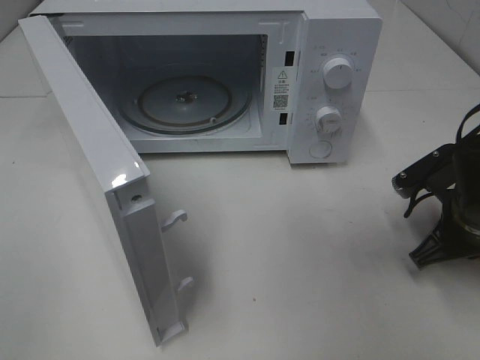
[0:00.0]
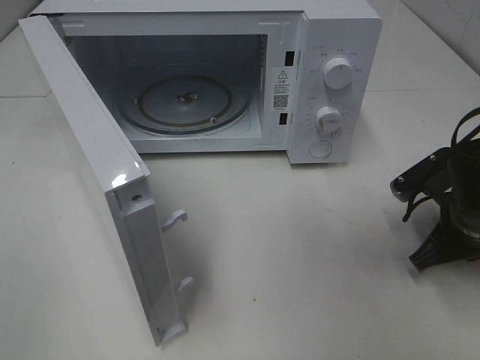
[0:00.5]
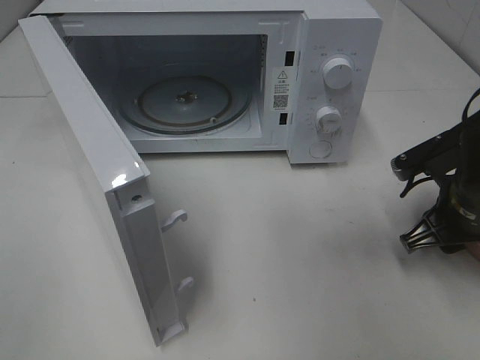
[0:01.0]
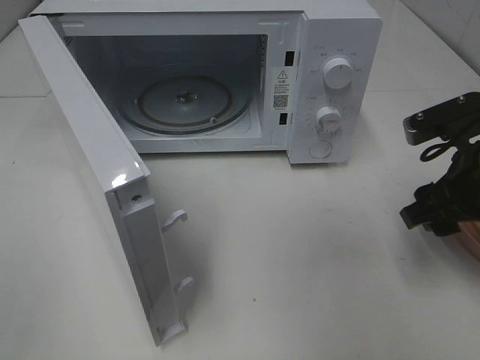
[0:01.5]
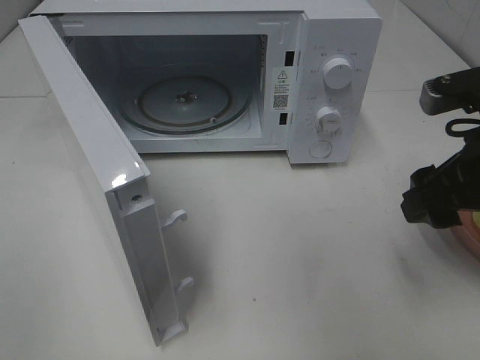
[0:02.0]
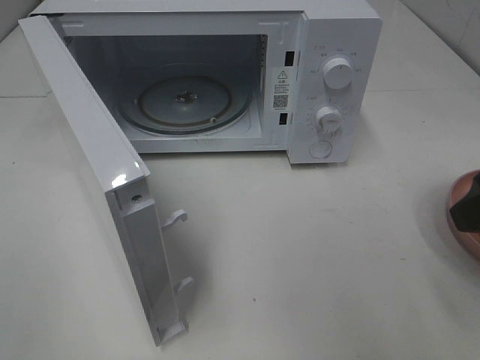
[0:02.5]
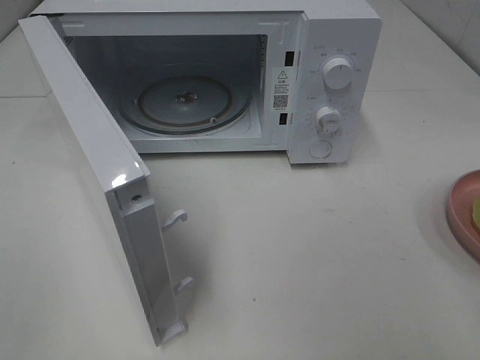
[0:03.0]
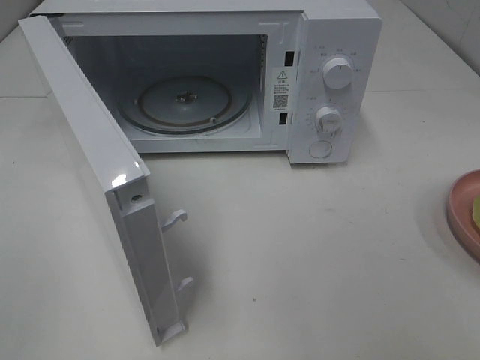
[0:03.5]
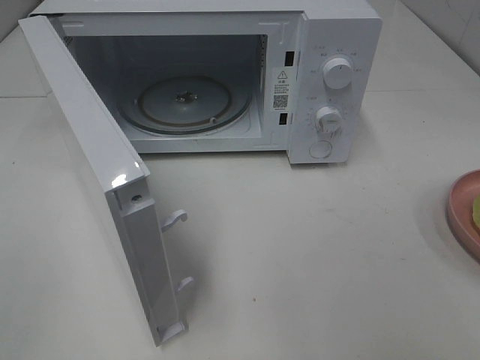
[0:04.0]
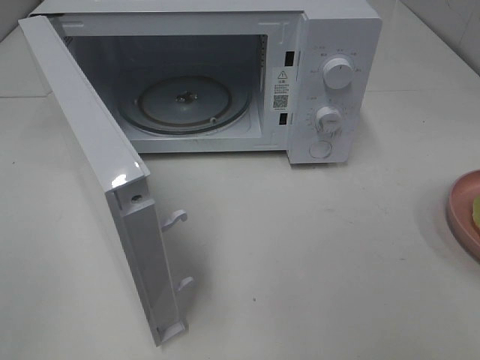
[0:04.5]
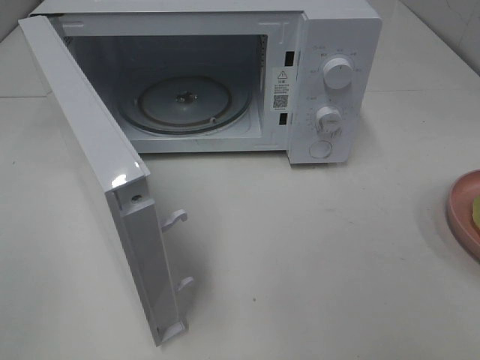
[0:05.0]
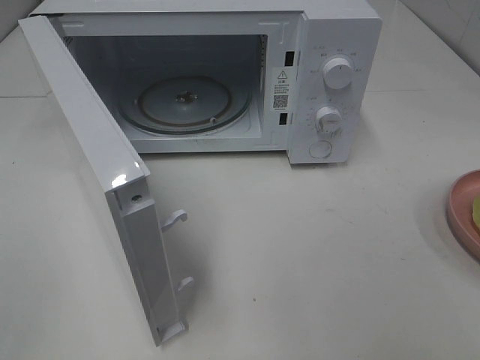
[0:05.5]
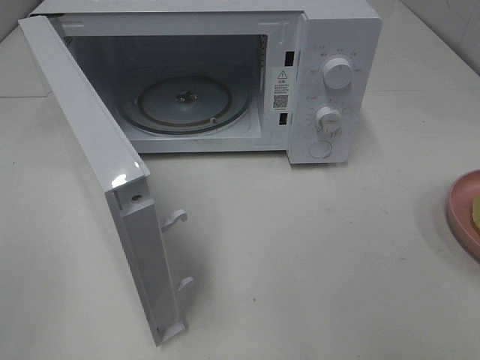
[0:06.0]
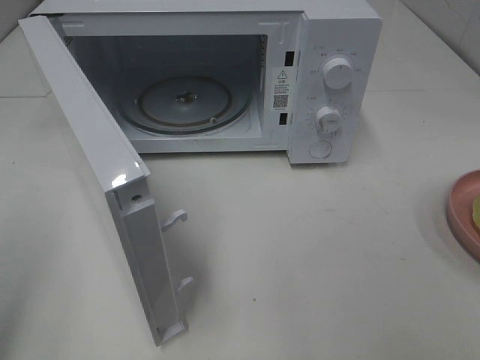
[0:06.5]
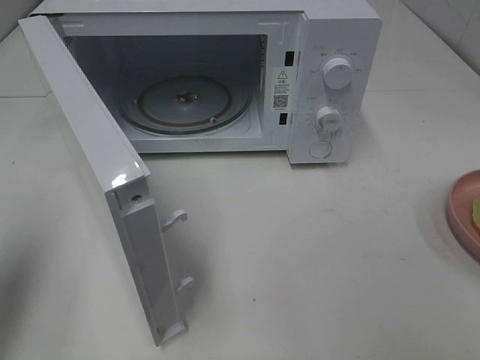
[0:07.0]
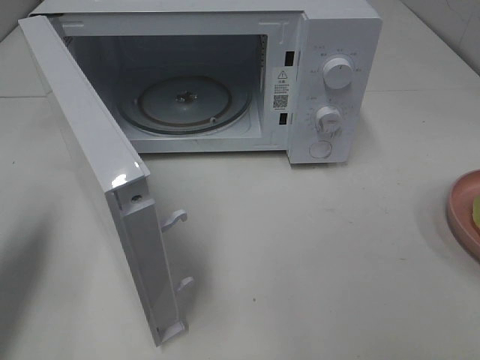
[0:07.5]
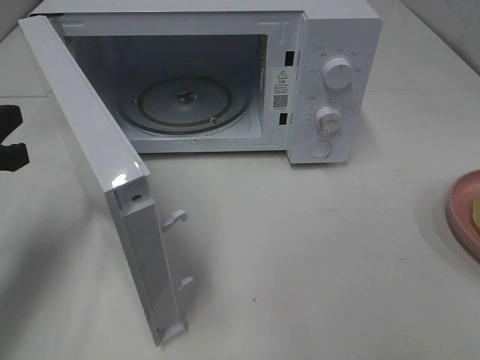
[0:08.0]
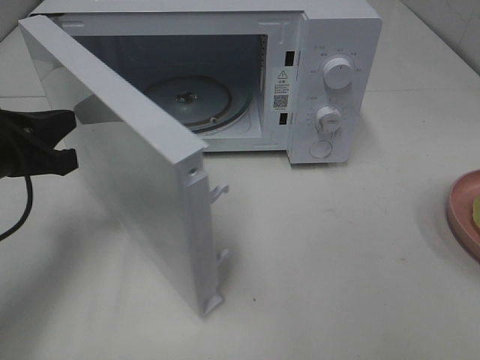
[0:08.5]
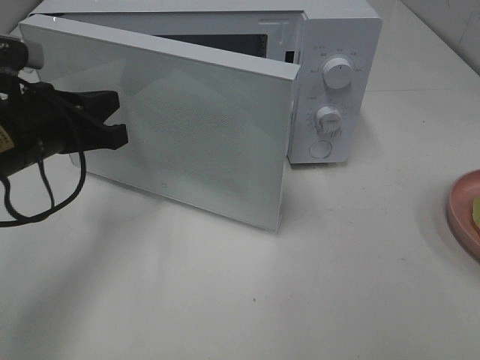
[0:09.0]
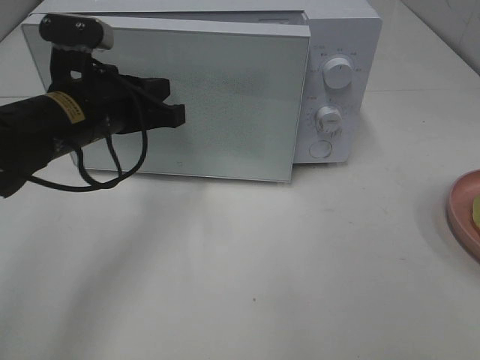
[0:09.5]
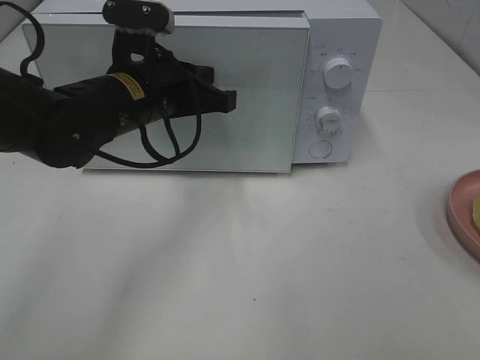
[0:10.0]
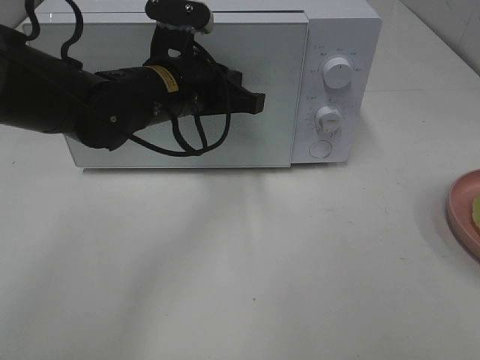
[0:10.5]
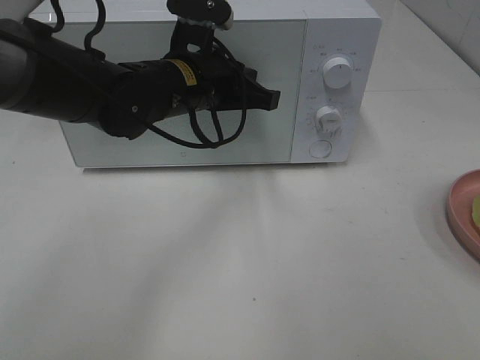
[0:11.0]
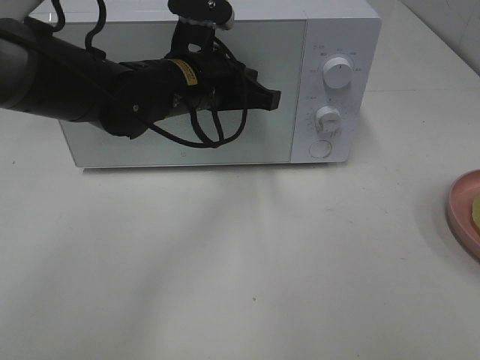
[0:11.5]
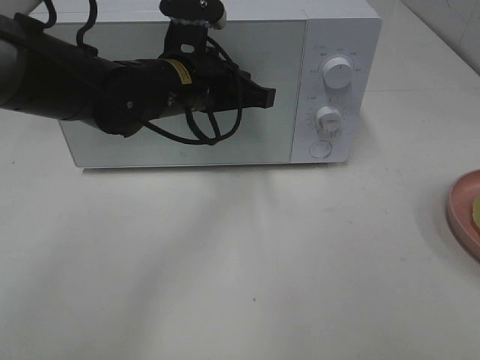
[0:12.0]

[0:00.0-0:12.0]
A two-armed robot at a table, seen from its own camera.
Task of the whole recording: Heat Sandwich.
0:00.0 to 0:02.0: The right gripper moves upward, about 15 cm, and opens up.
0:02.0 to 0:04.0: The right gripper is displaced backward by roughly 20 cm.
0:06.0 to 0:08.0: The left gripper moves forward and downward, approximately 25 cm, and closes its fingers.
0:08.0 to 0:10.0: The left gripper is displaced to the right and forward by roughly 20 cm.
0:10.0 to 0:12.0: The grippers stay close to where they were, moving slightly.

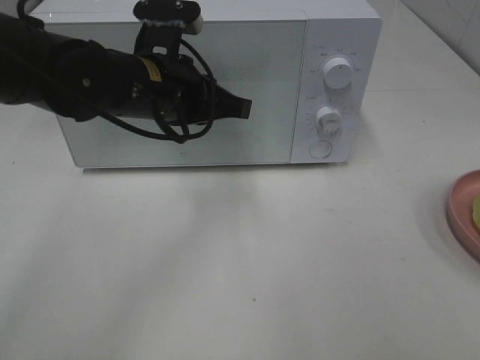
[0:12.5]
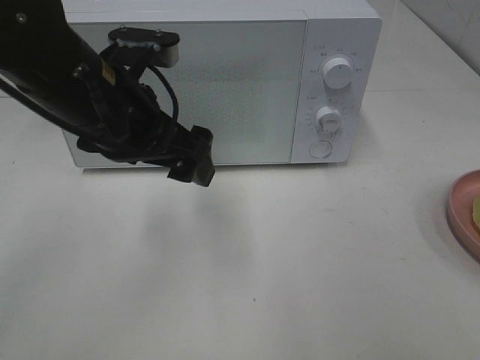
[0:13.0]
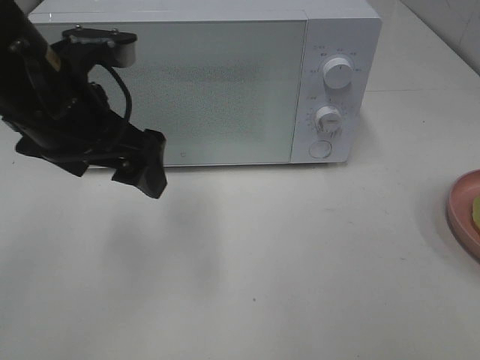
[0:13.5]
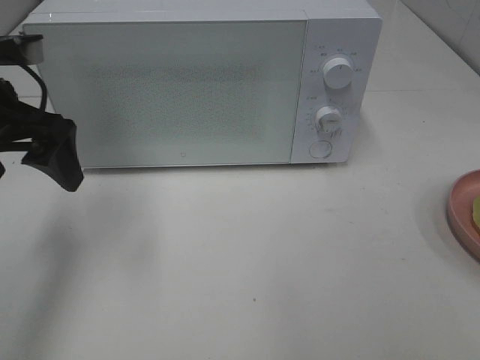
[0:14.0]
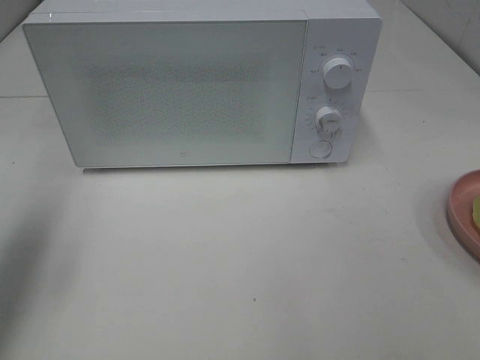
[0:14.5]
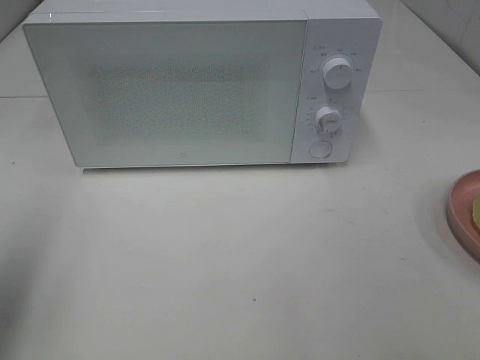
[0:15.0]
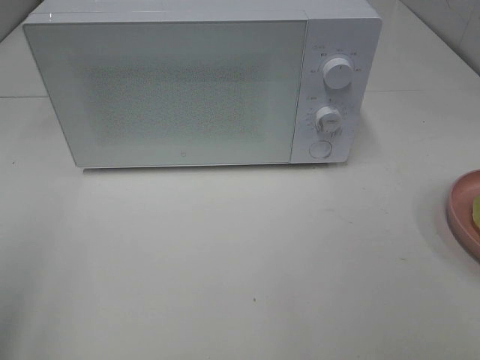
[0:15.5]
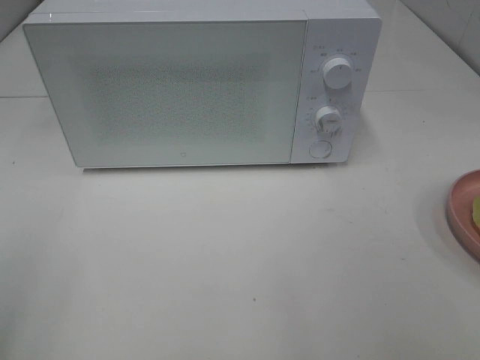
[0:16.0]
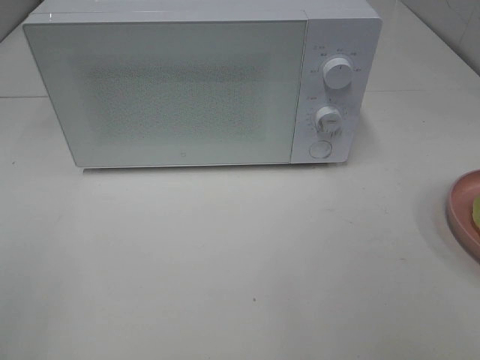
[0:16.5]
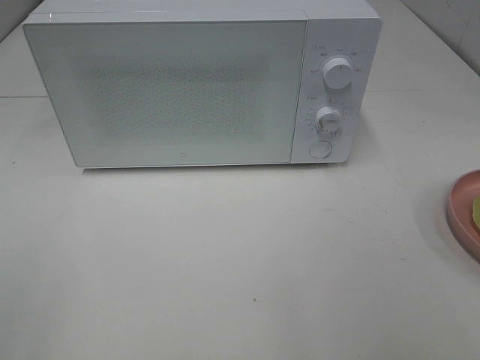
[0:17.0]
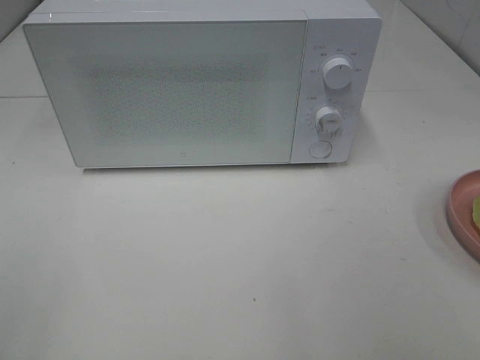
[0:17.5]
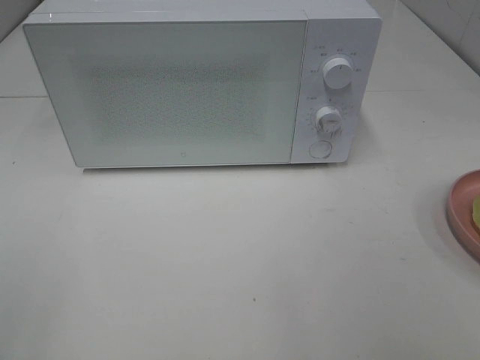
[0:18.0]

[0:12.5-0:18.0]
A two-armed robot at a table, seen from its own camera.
Task of the whole recording: Heat Sandwich.
0:12.5 to 0:14.5: The left gripper goes about 25 cm to the left, and opens up.
0:14.5 to 0:16.0: The left gripper travels backward by some 20 cm.

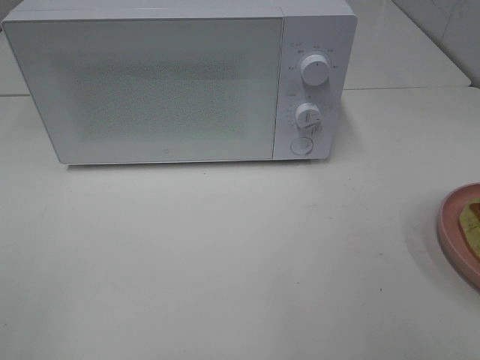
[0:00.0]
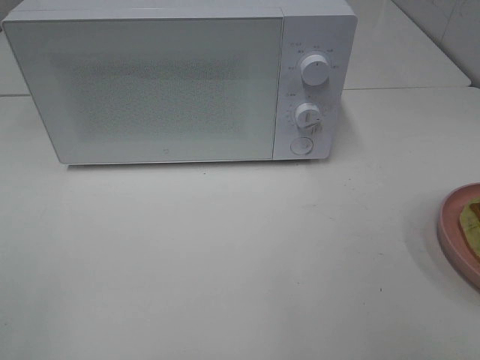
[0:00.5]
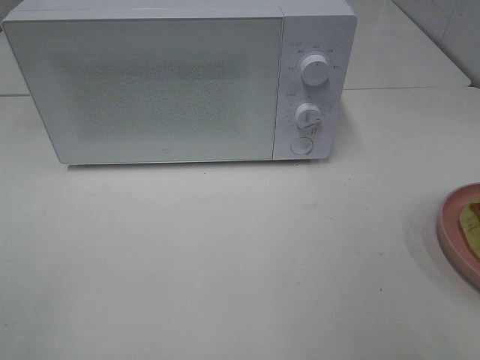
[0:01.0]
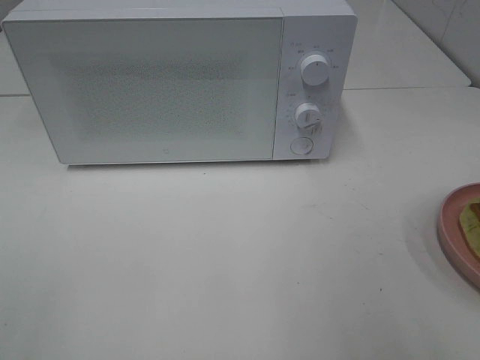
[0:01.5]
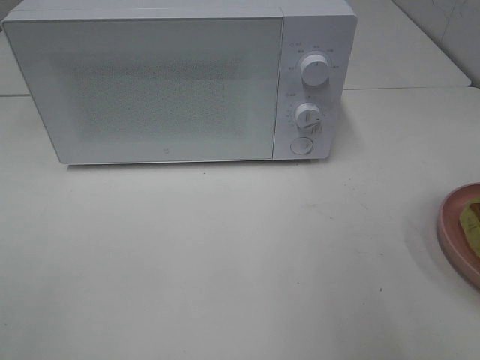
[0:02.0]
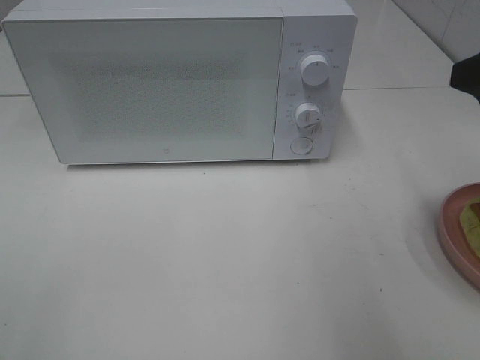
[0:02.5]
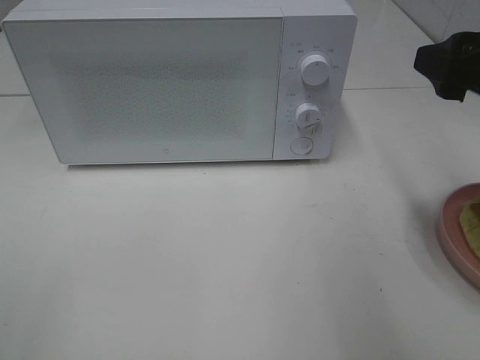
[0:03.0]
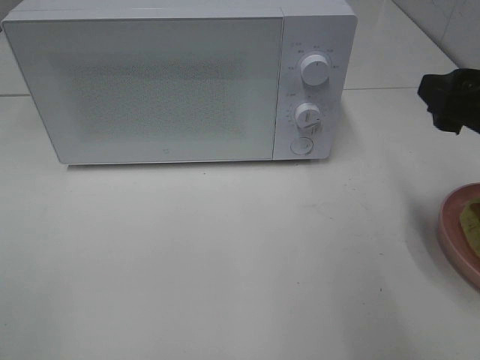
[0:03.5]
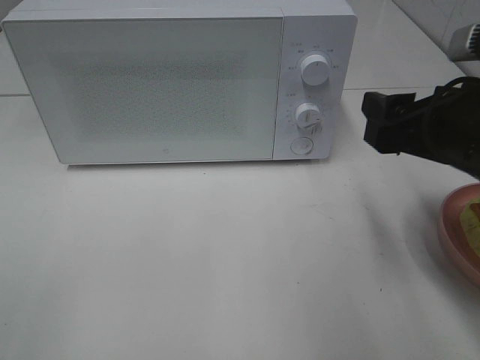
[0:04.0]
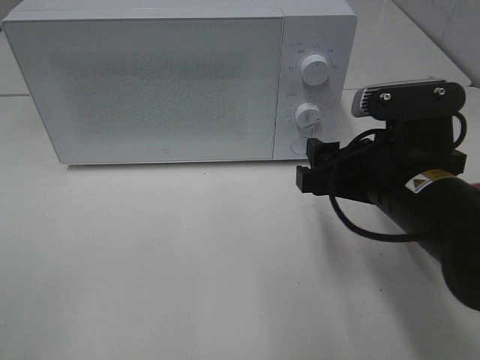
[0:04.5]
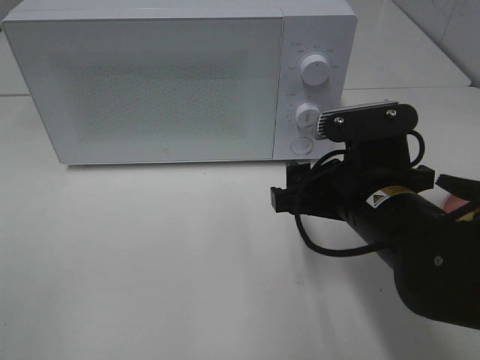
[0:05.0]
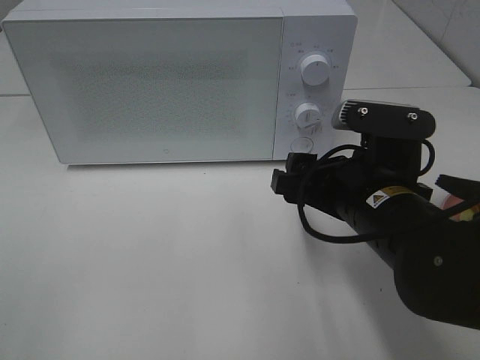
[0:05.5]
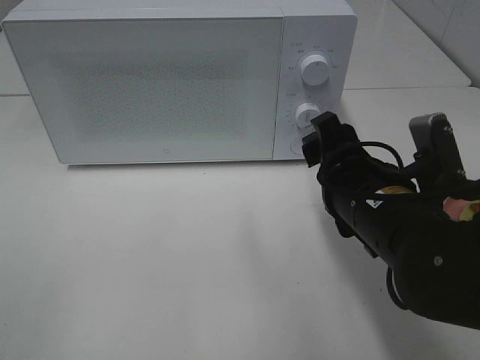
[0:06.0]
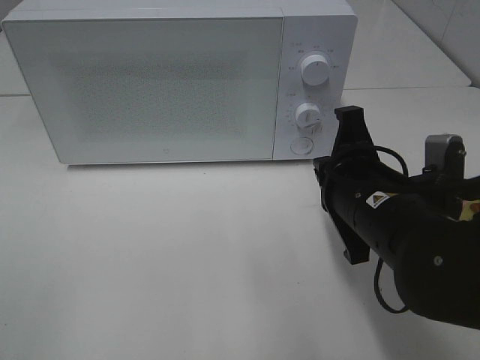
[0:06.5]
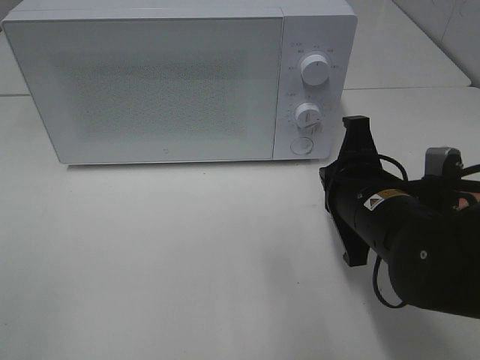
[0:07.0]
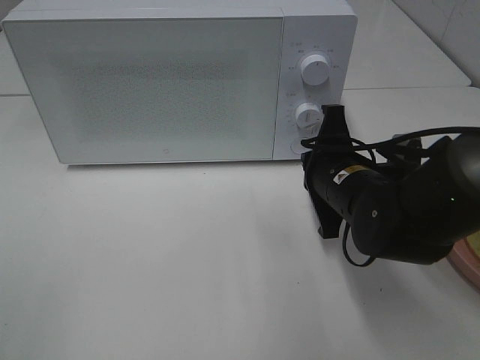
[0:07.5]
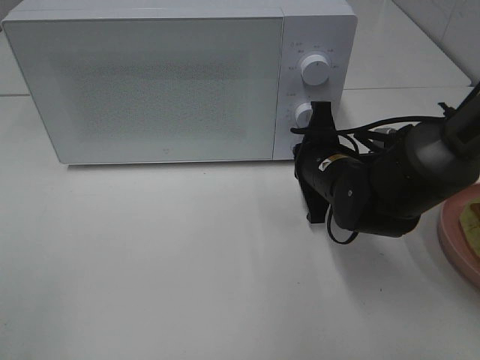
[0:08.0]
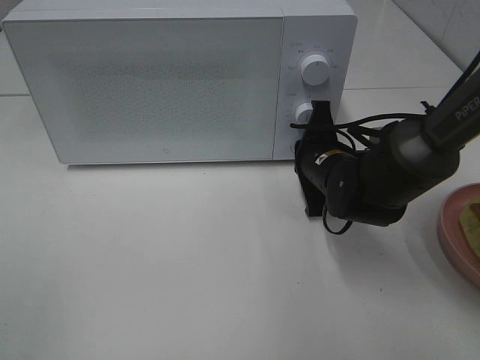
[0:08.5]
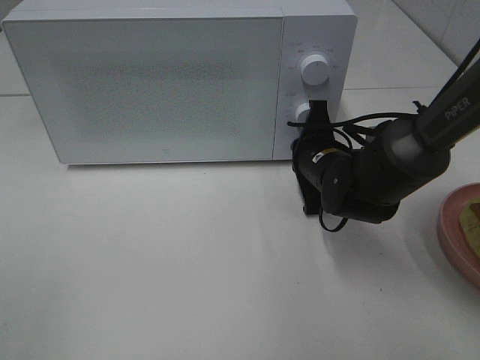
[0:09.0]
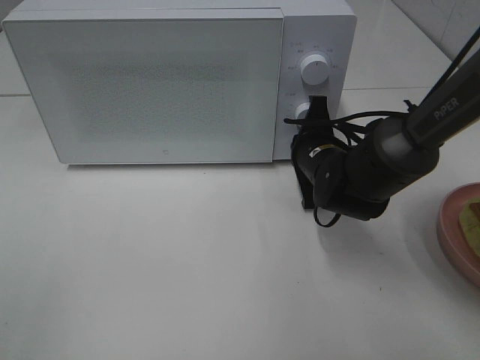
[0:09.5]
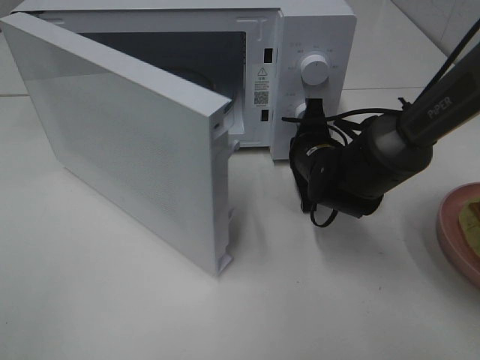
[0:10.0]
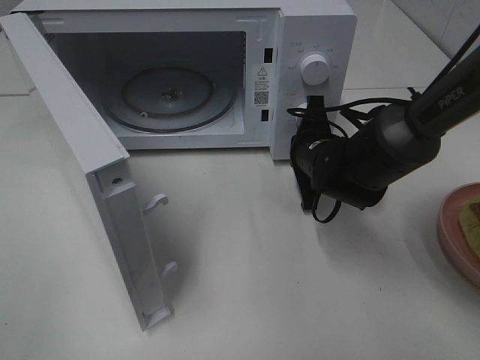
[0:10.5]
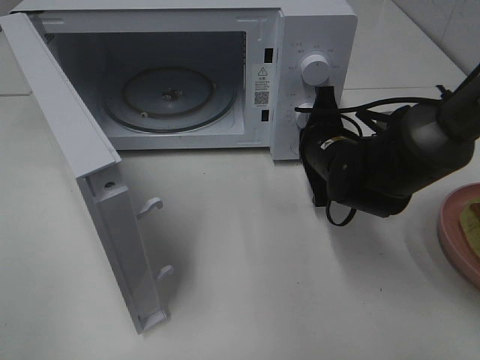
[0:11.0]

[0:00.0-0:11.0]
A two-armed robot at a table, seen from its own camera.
Task of the whole recording: Heat Sandwich.
0:02.0 to 0:03.5: The right gripper shifts about 10 cm downward and forward.
0:03.5 to 0:05.5: The right gripper travels to the left and downward by about 15 cm.
0:05.5 to 0:07.5: The right gripper moves forward, approximately 5 cm, and closes up.
0:07.5 to 0:09.0: The right gripper heads forward, covering some 5 cm.
